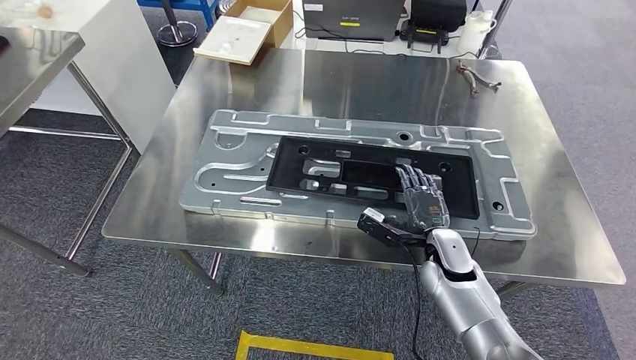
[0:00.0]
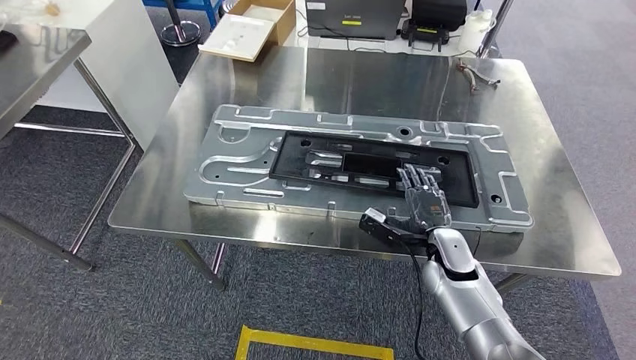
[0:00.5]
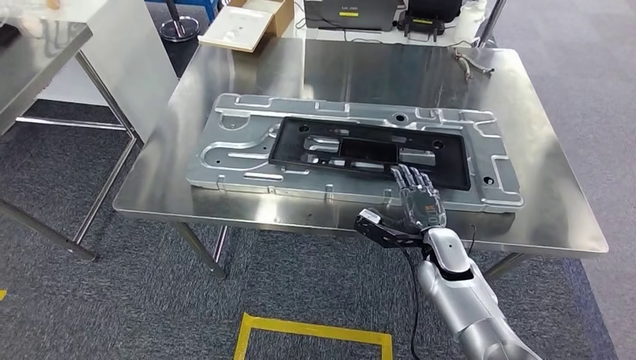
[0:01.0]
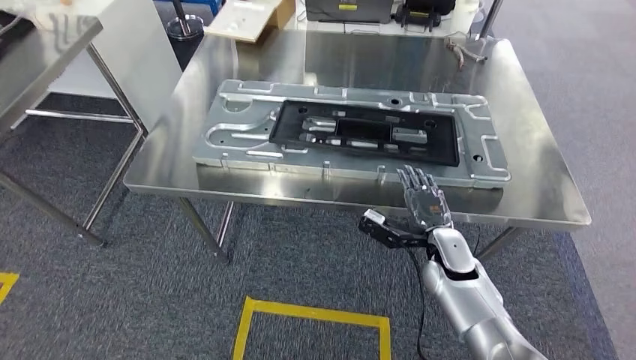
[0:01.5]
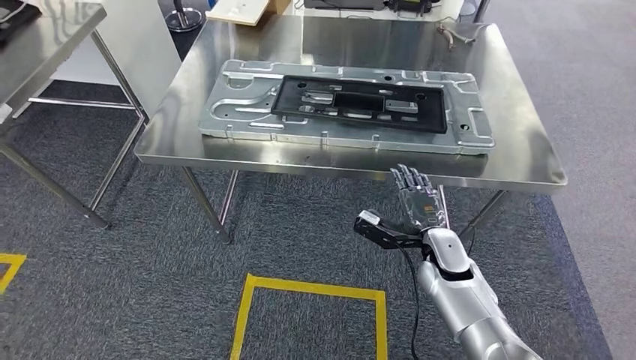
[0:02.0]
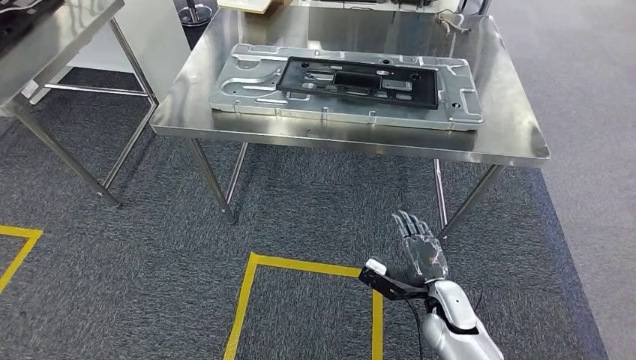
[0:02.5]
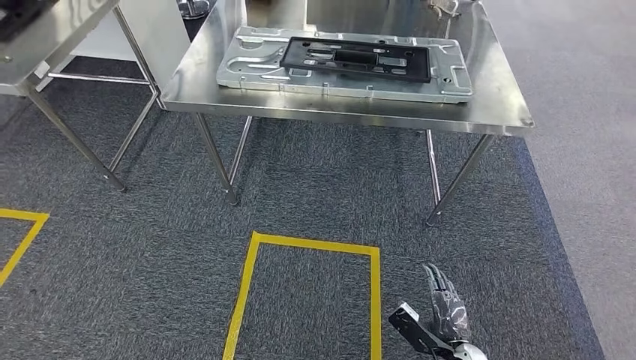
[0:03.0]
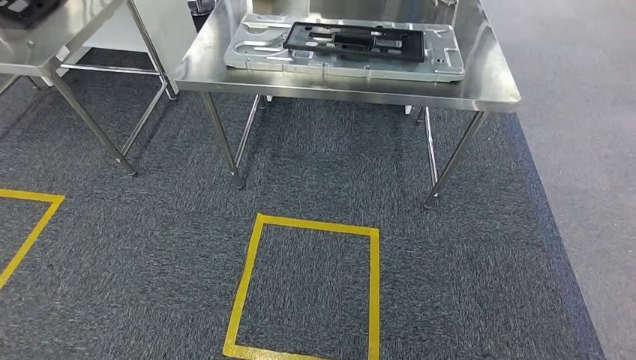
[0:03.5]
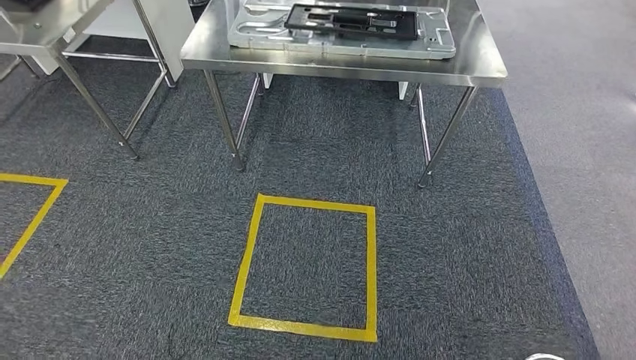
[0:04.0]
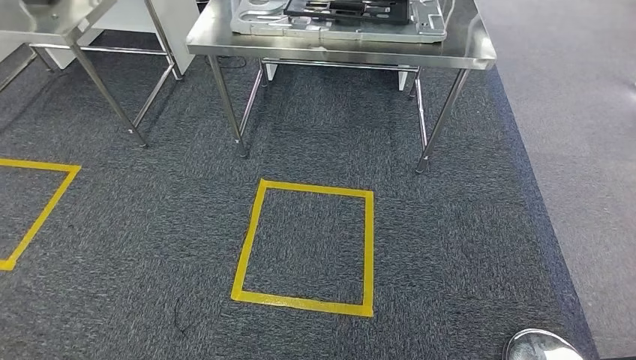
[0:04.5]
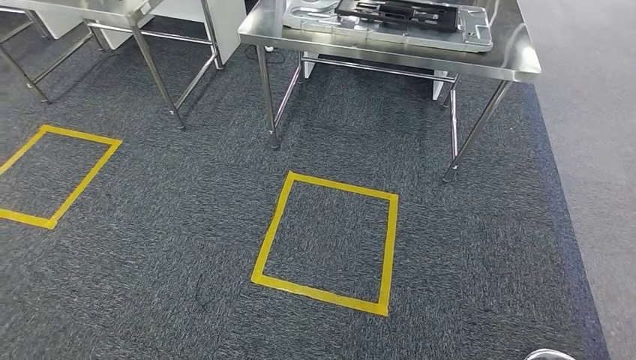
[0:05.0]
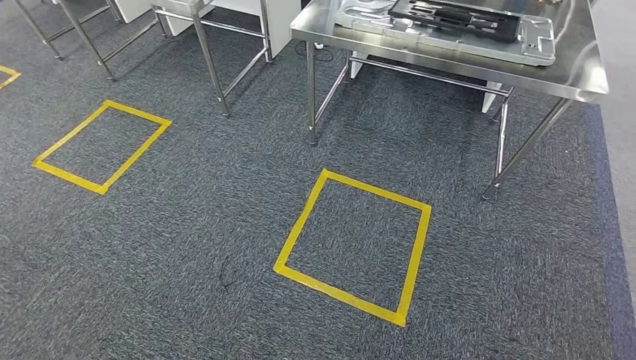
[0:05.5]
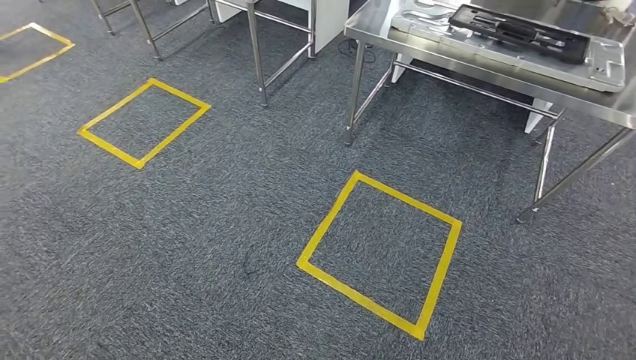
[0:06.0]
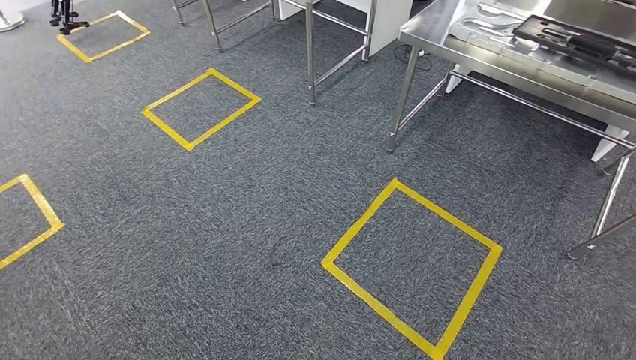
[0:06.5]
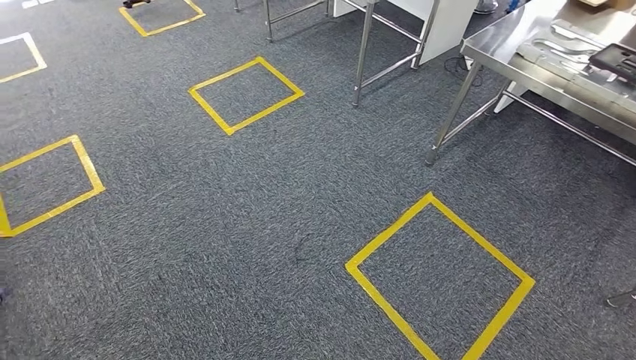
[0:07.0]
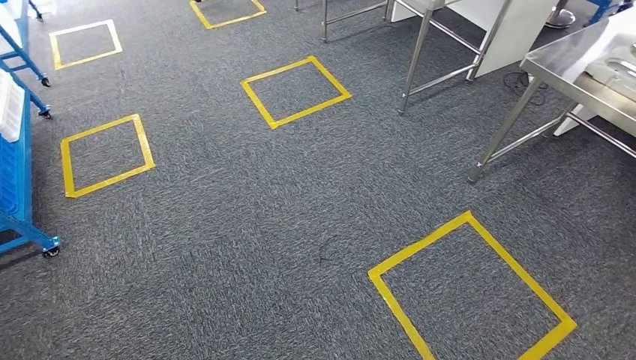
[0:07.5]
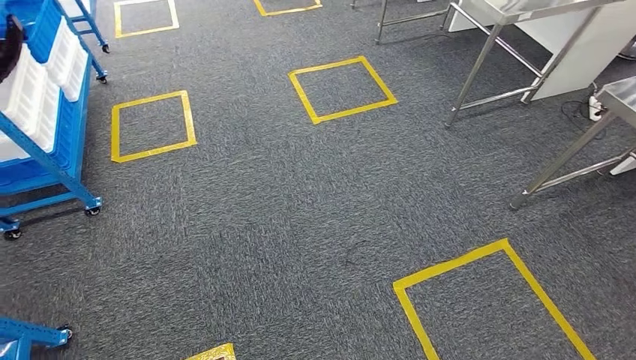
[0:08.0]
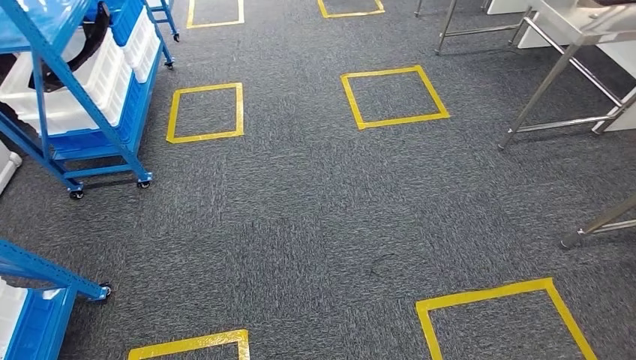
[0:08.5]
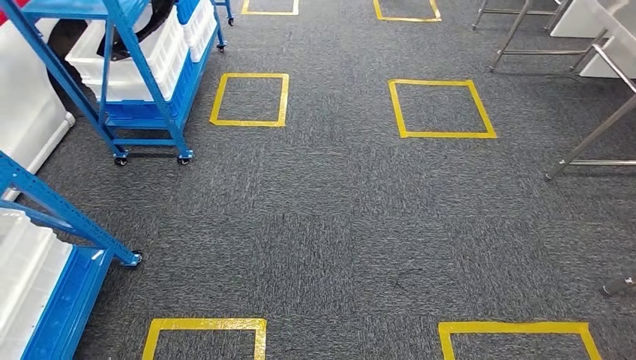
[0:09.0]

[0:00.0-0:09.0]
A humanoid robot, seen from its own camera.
Step, 0:00.0 to 0:03.5: Insert the large material into the corresponding slot on the workbench.

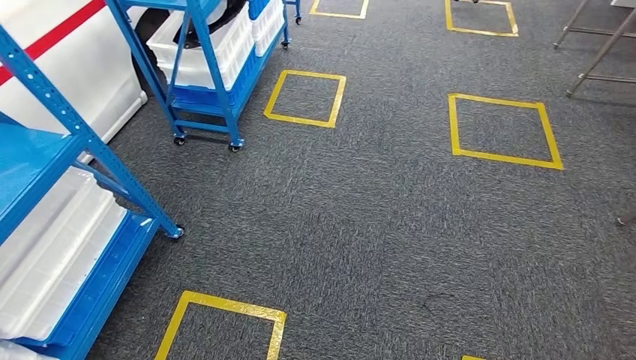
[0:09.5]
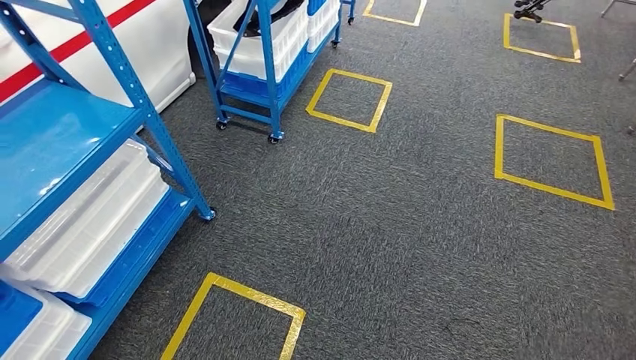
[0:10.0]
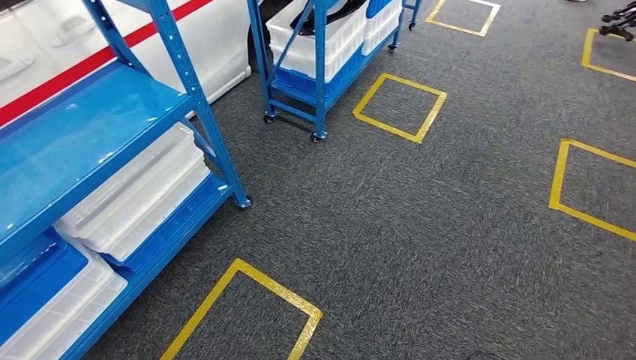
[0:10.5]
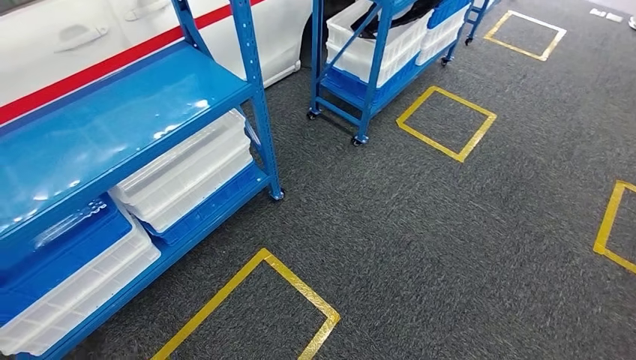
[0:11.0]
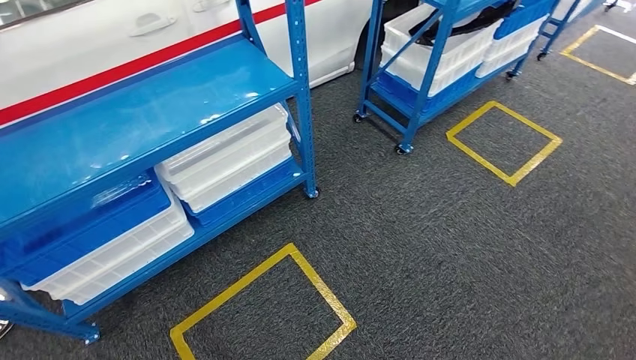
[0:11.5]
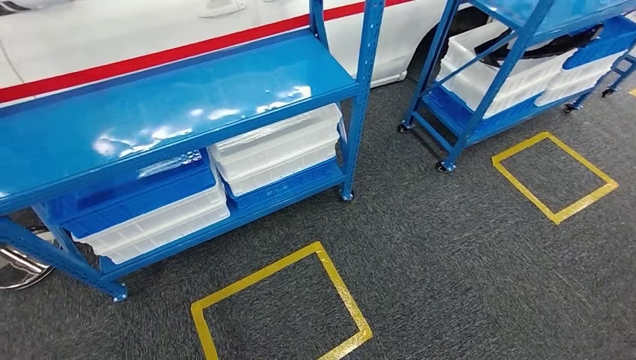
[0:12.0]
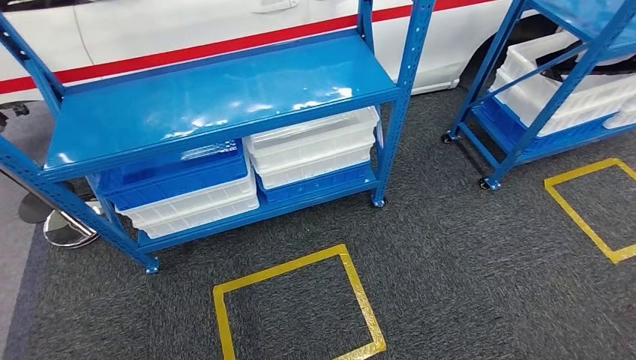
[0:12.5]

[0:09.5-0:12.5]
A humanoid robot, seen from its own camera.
Step, 0:09.5 to 0:12.5: Move to the initial position of the shelf.
